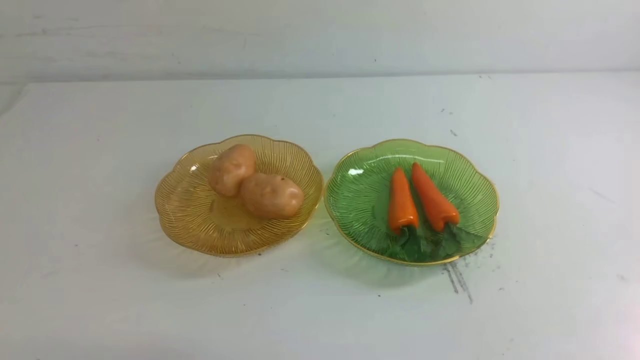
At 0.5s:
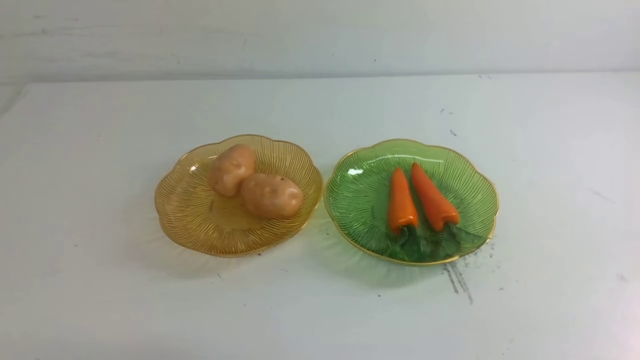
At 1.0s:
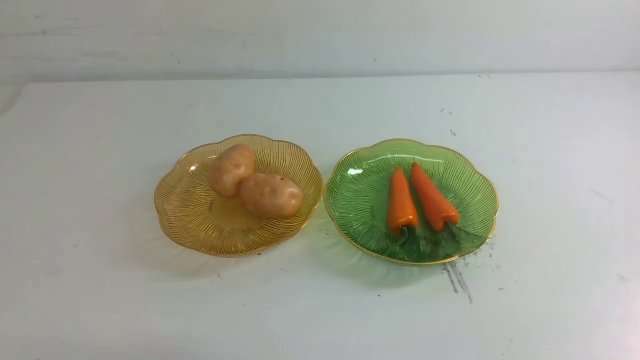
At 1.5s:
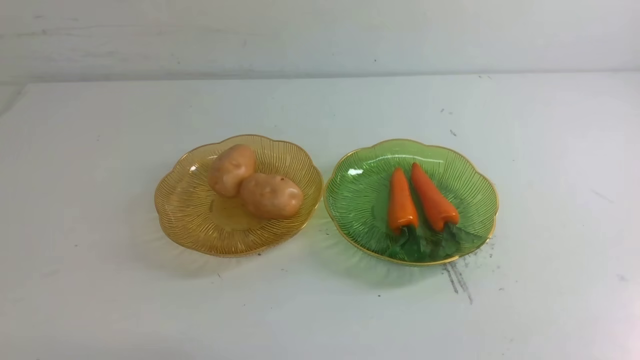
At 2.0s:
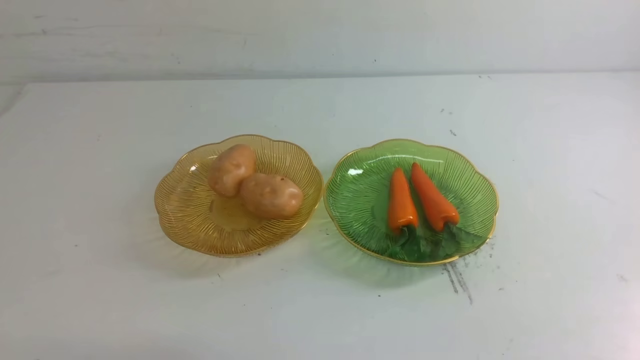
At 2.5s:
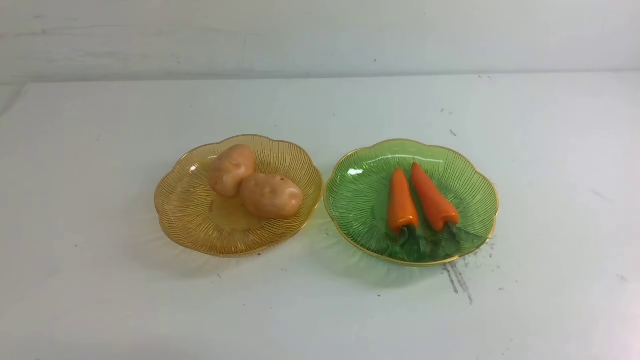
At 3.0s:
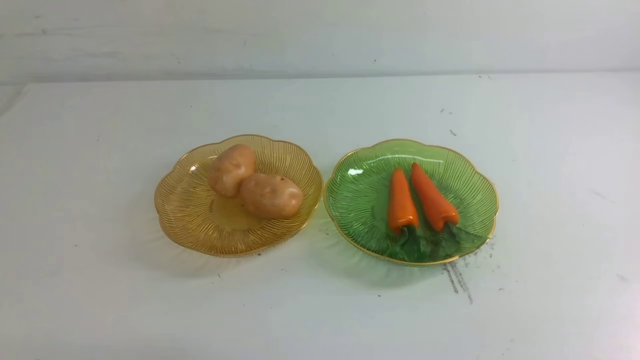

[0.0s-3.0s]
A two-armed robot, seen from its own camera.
1.5s to 3.0s: Neither gripper changes place.
